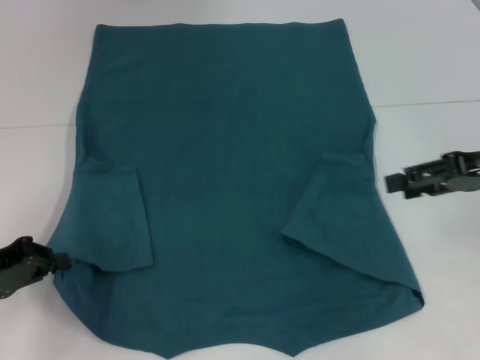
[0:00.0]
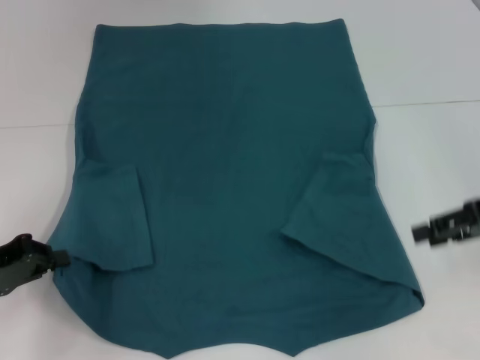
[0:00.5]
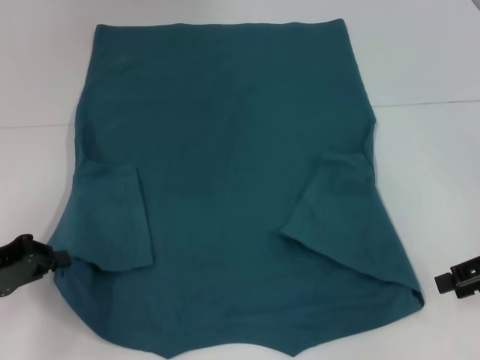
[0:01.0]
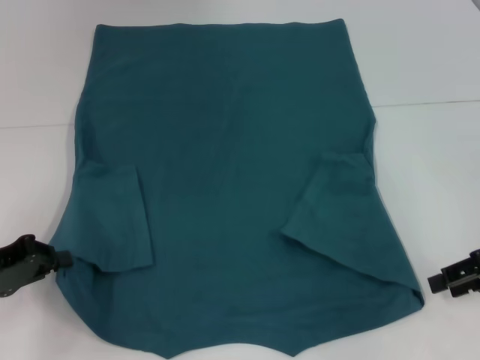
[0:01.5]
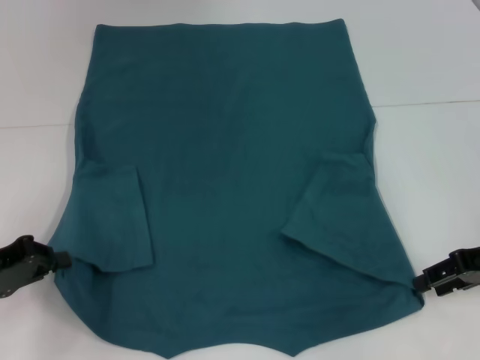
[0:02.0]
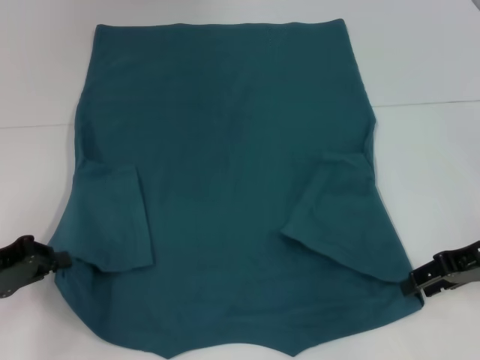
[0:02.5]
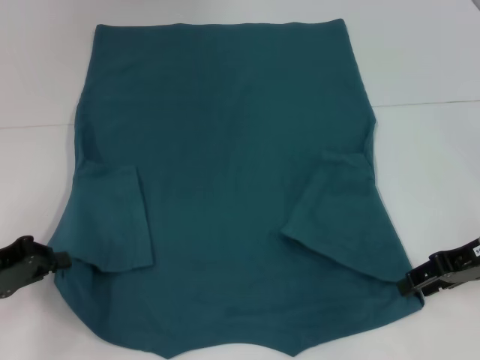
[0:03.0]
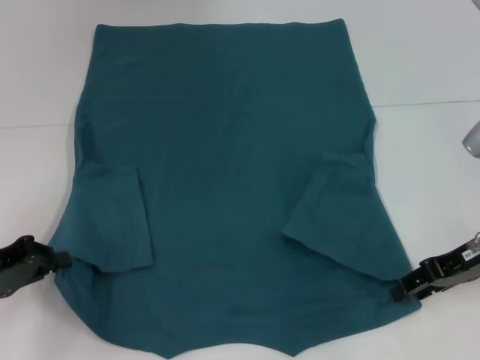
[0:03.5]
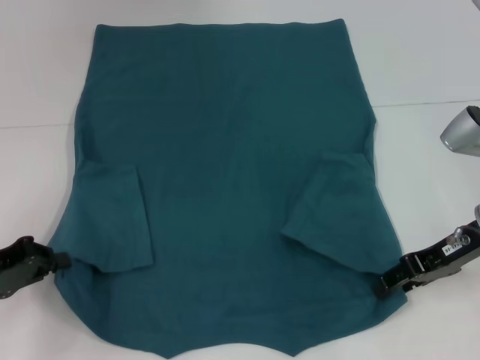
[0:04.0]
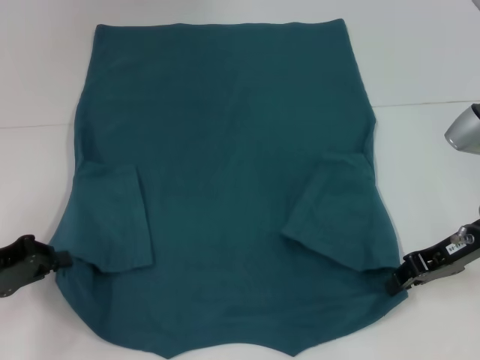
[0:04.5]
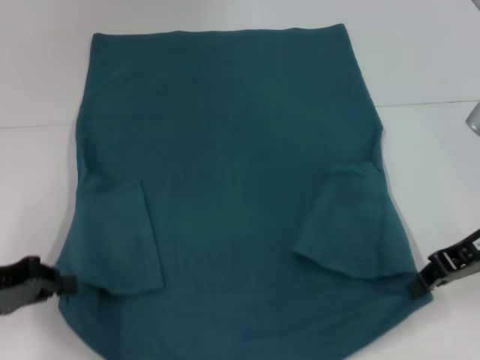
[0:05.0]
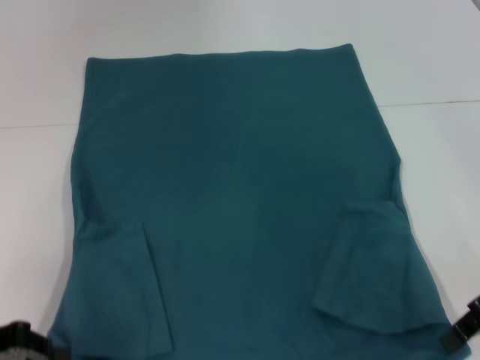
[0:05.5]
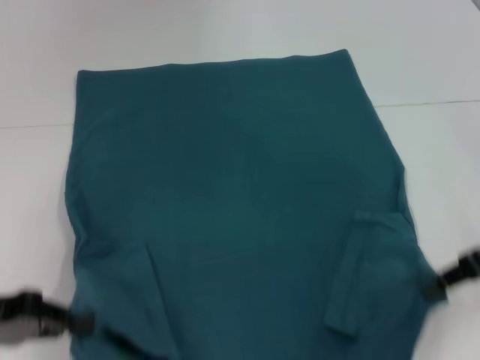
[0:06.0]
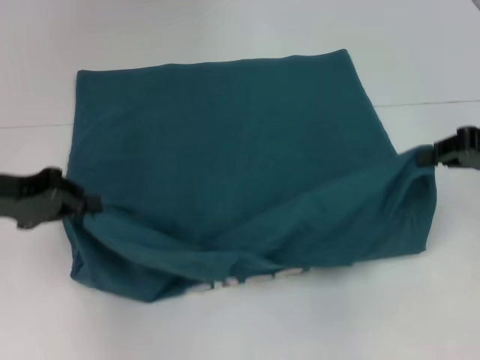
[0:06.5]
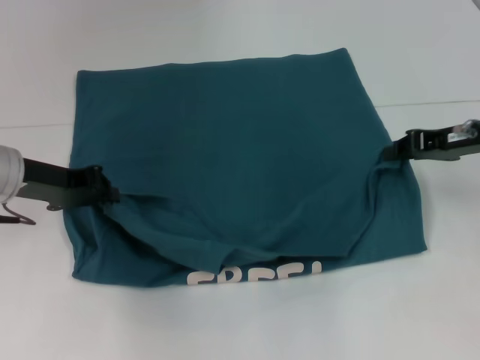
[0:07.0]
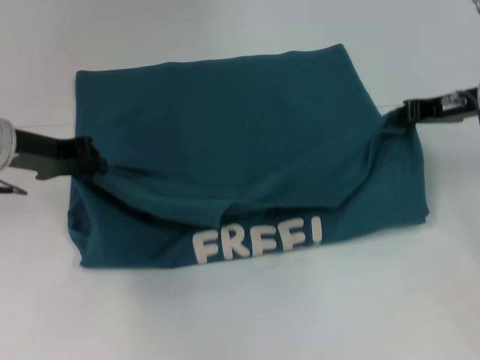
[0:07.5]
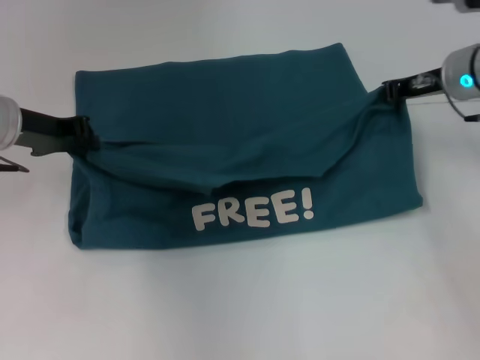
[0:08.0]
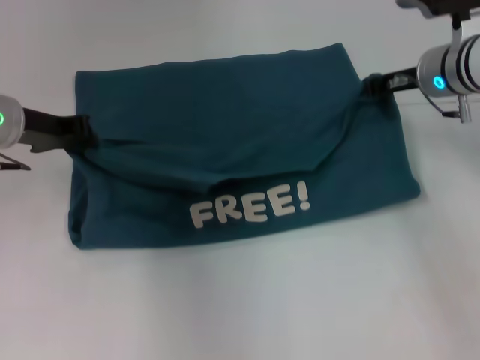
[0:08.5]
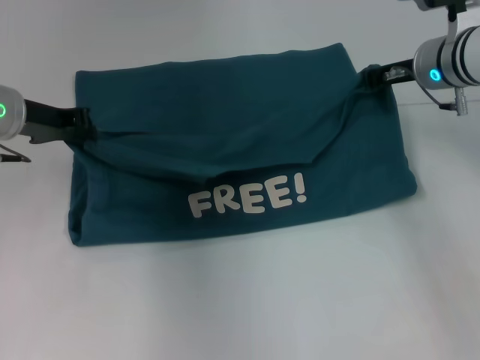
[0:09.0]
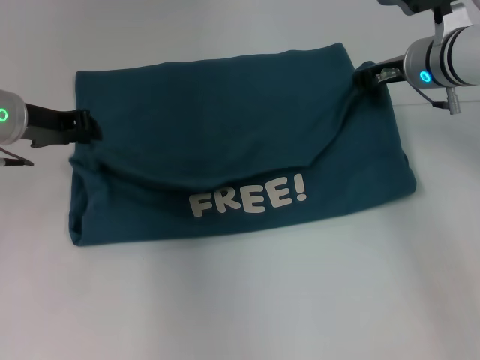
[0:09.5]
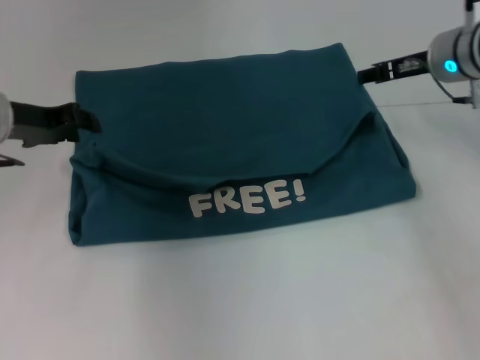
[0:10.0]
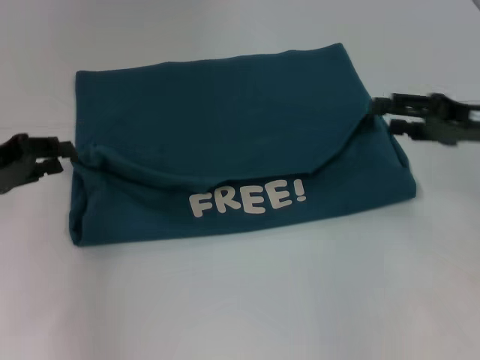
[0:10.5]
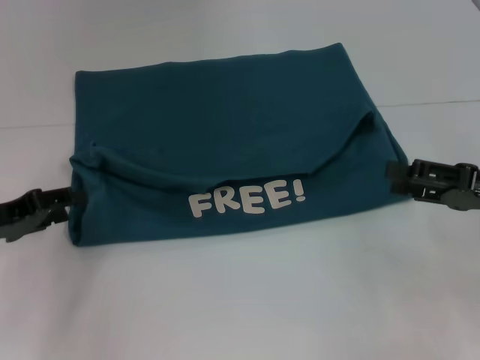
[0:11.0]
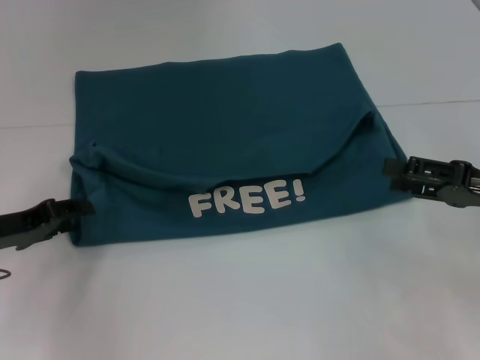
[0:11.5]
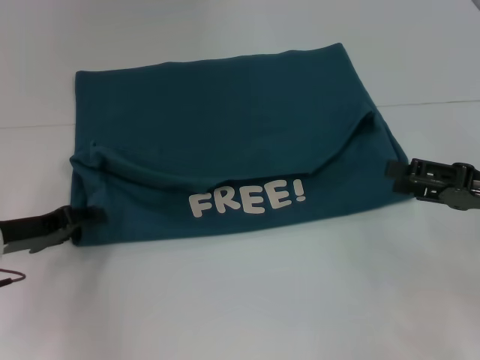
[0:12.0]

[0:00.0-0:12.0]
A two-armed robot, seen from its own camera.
Step, 0.0 to 4.5 s: Grab the bottom right corner with your right hand.
Step, 5.0 to 9.5 s: Fold the clothes to the left.
Step, 5.0 to 9.5 s: Fold the clothes to the right.
0.0 to 2.0 s: The right gripper moves downward, some 5 cm.
2.0 to 4.0 s: The right gripper travels to the left by some 5 cm.
4.0 to 6.0 s: The left gripper ends up some 5 cm from where it was, while the right gripper shifts some 5 cm upward, and closes.
6.0 to 8.0 s: The left gripper goes about 15 cm forward. Meanwhile the right gripper is displaced forward and to the left by about 15 cm.
8.0 to 10.0 s: The left gripper opens up. Meanwhile the right gripper opens up.
10.0 to 12.0 s: The right gripper is displaced backward, to the right and downward by about 20 cm, and opens; the left gripper goes about 15 cm downward and backward.

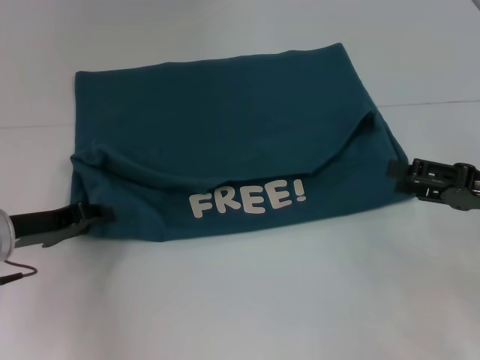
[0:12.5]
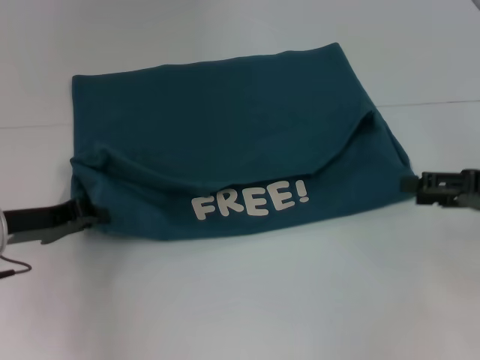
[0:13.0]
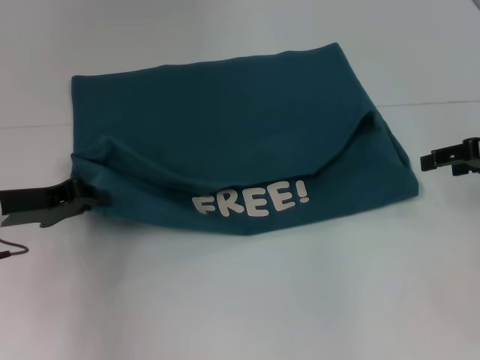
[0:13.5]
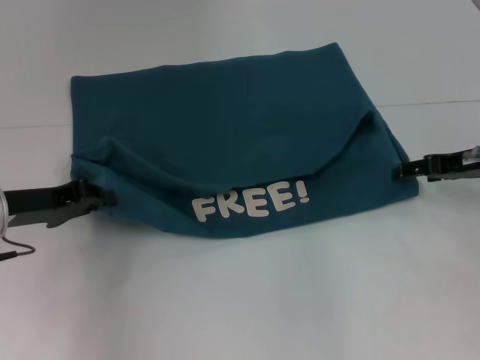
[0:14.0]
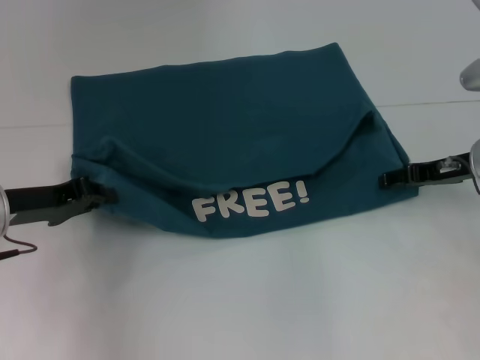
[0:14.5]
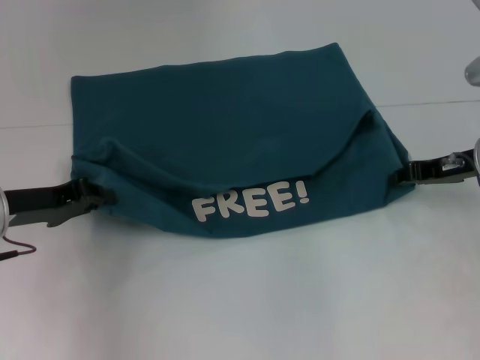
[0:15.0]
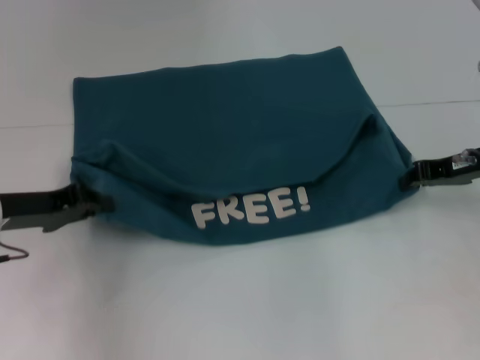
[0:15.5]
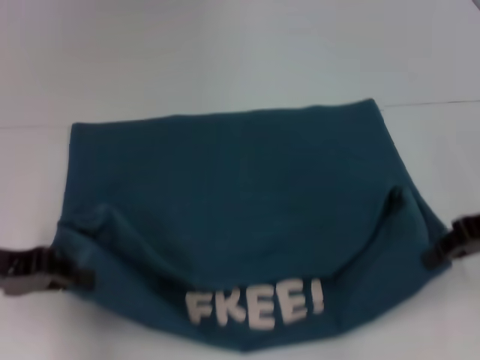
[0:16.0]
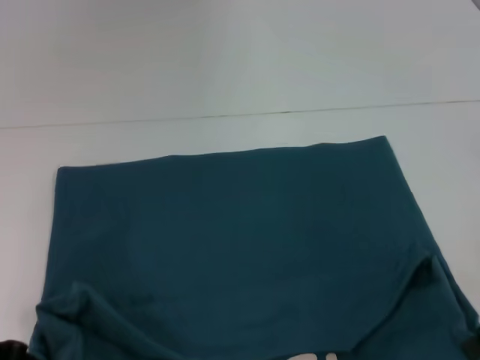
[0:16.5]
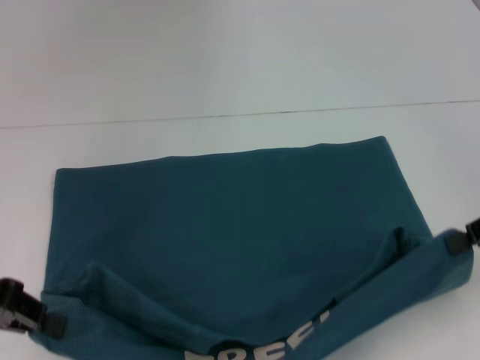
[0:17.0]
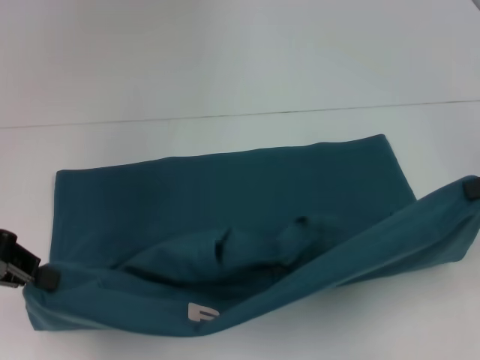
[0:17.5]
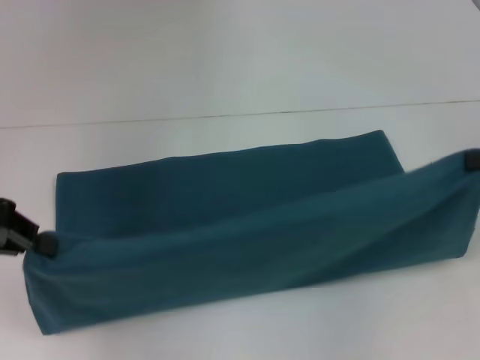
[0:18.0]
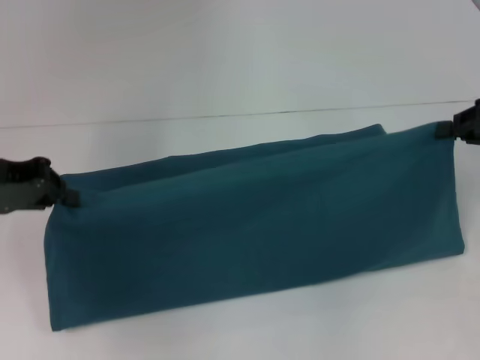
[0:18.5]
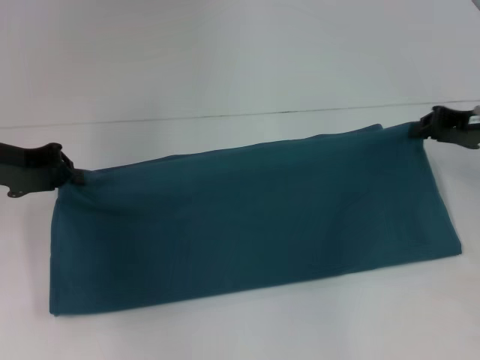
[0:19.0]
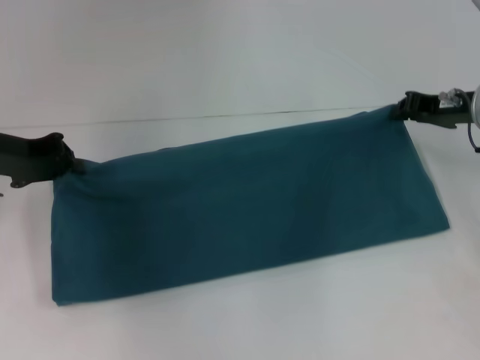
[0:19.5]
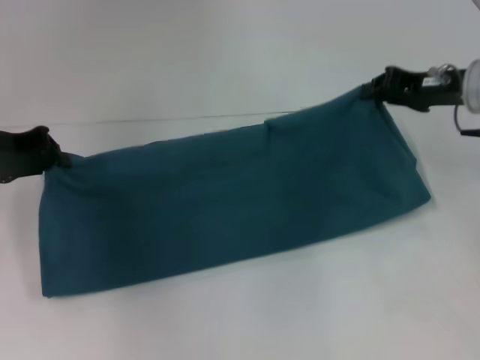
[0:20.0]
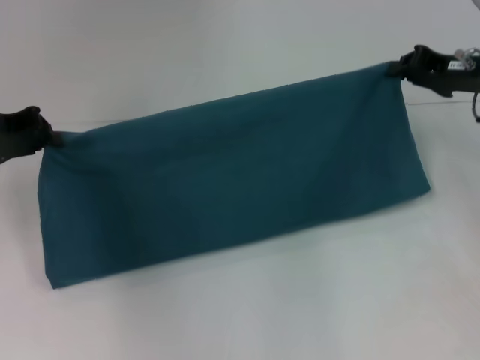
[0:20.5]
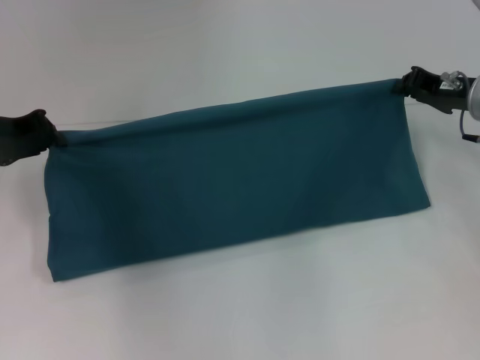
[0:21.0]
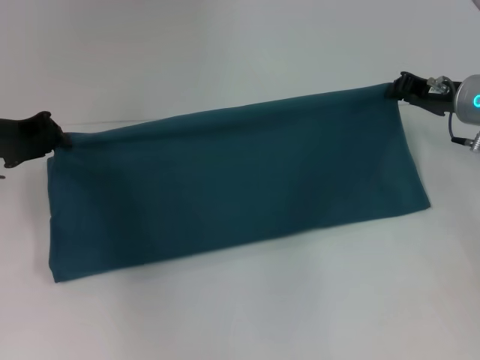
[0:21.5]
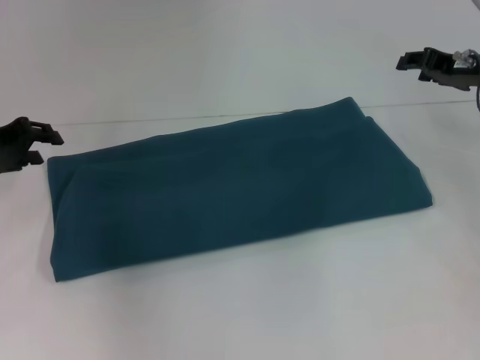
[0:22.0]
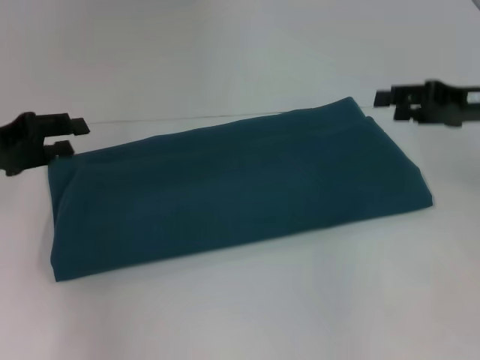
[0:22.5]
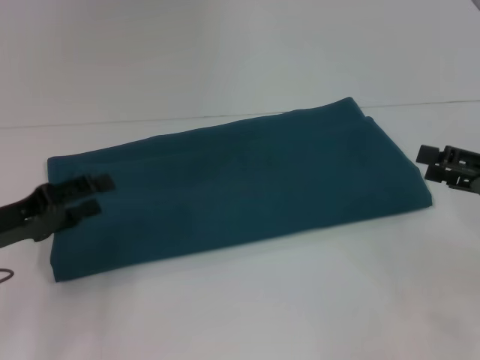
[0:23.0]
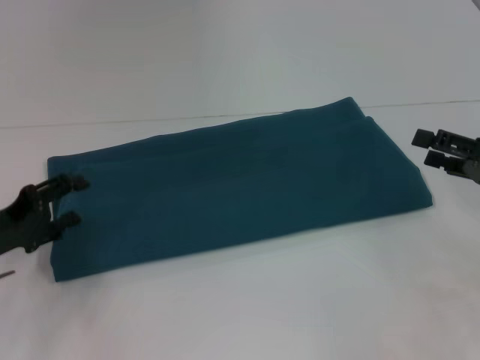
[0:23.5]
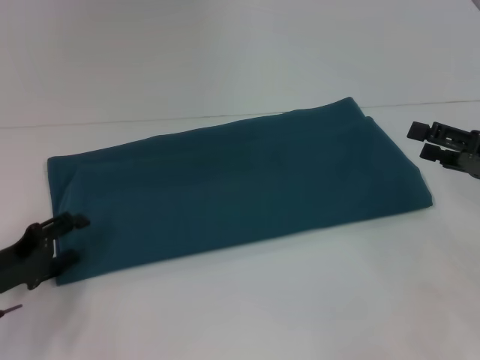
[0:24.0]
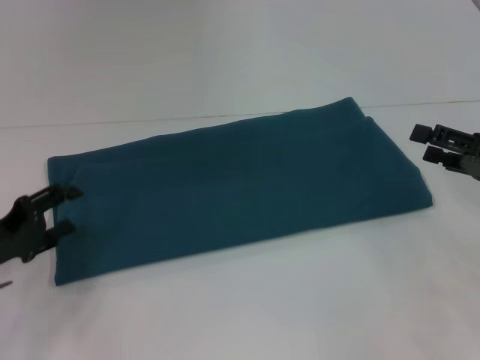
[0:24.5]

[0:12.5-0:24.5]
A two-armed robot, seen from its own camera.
Step, 12.5 to 16.5 s: Pull the clothes with your left hand.
Step, 12.5 to 16.5 s: Pull the clothes with your right hand.
Step, 17.0 to 21.5 s: Fold the clothes to the right.
12.5 to 14.5 s: The left gripper closes its fingers. Meanwhile the right gripper travels forward by some 10 cm.
14.5 to 16.5 s: Both grippers move backward, some 10 cm. The right gripper closes up.
16.5 to 18.5 s: The left gripper is displaced forward and upward by some 15 cm. Meanwhile the right gripper travels forward by approximately 10 cm.
18.5 to 20.5 s: The right gripper shifts some 10 cm to the left and forward.
20.5 to 22.5 s: The right gripper opens its fingers, while the left gripper shifts by some 5 cm, and opens.
22.5 to 24.5 s: The left gripper travels downward and backward by roughly 10 cm. Meanwhile the right gripper travels backward and downward by some 10 cm.

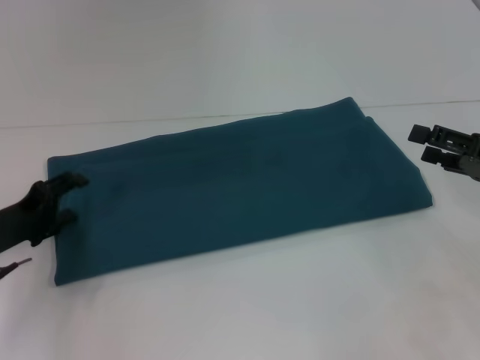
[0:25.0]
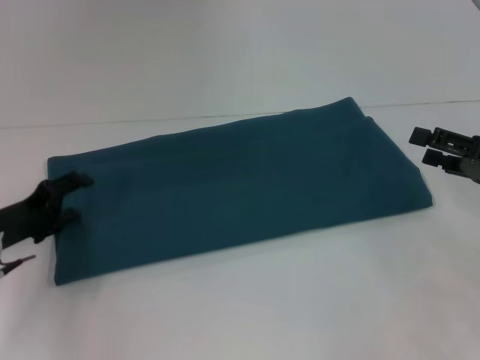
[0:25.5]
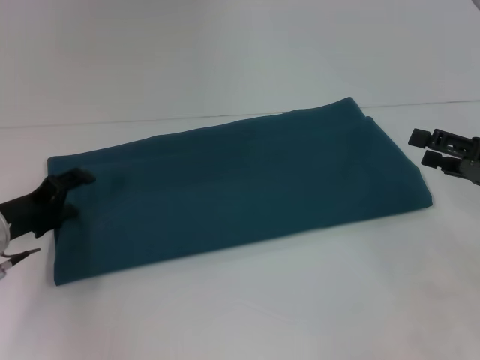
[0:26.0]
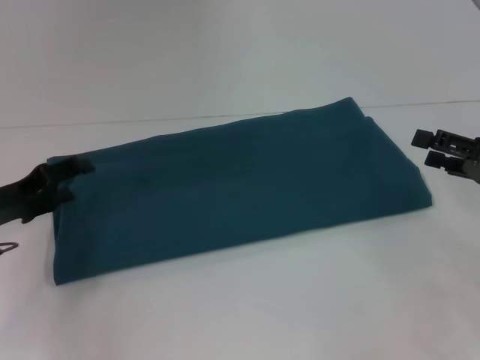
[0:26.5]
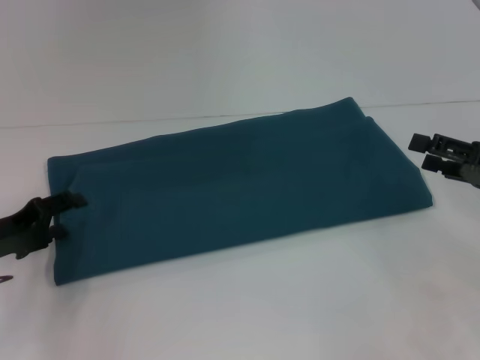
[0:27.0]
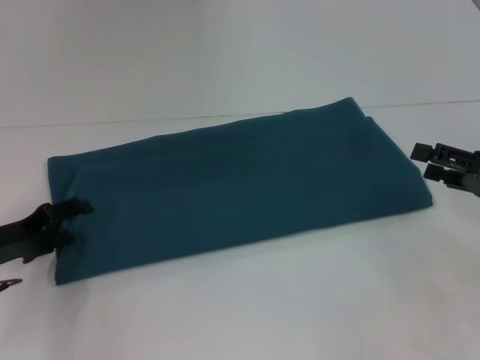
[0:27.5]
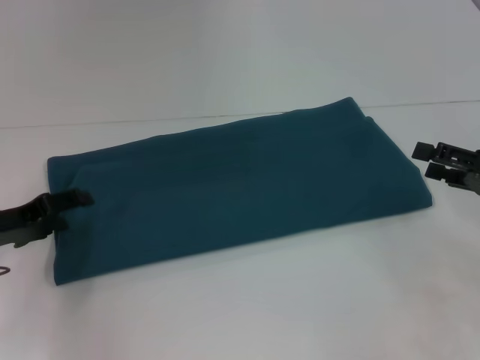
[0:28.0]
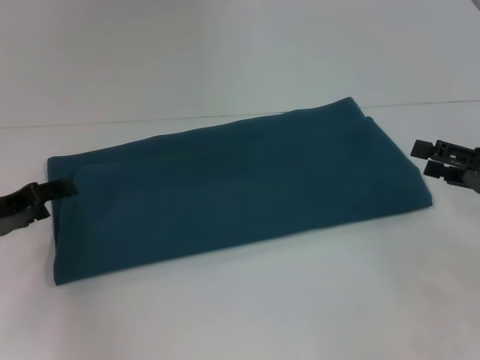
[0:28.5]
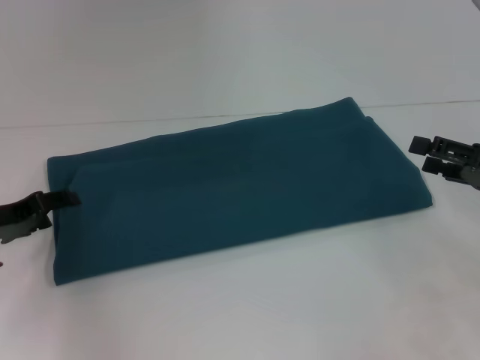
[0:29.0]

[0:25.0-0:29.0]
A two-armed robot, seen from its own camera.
25.0 to 27.0 s: The grippers make only small movements.
27.0 to 29.0 s: The grippers stay close to where they were, moving slightly.
